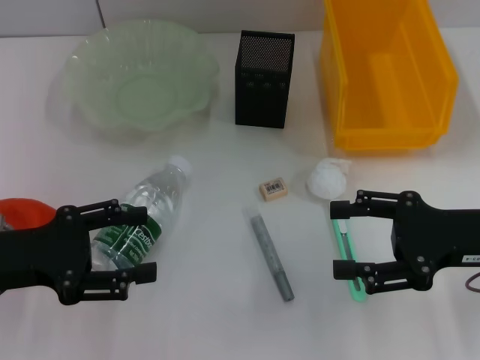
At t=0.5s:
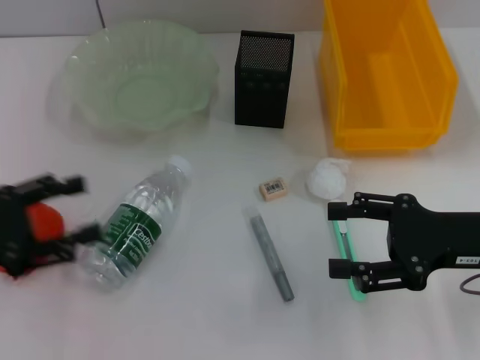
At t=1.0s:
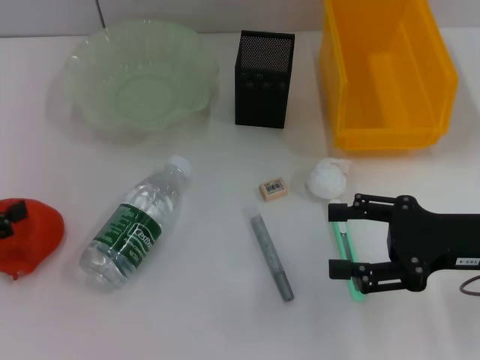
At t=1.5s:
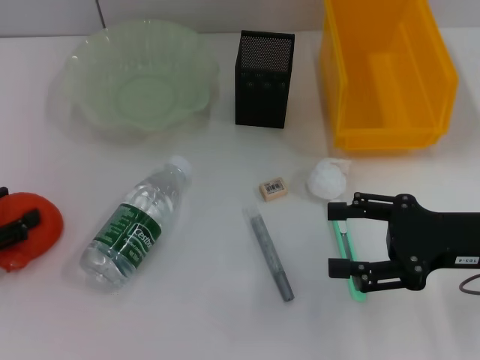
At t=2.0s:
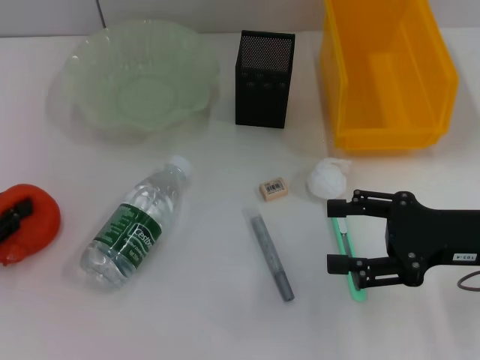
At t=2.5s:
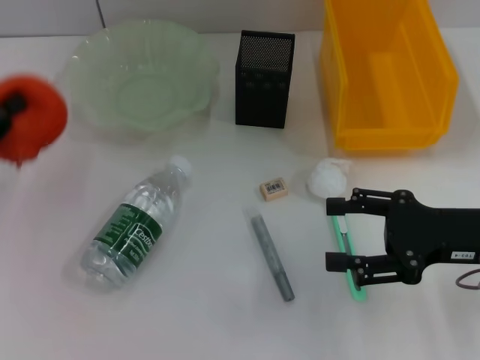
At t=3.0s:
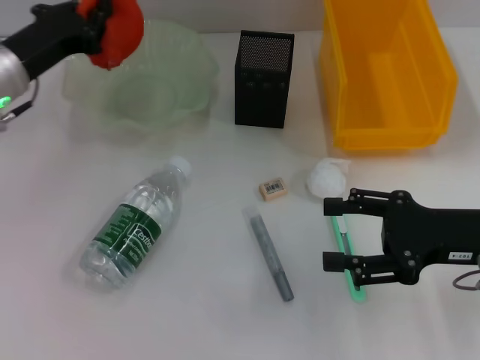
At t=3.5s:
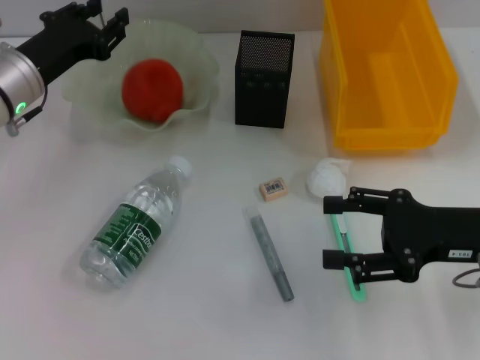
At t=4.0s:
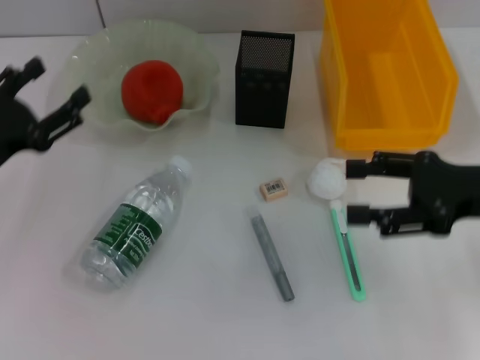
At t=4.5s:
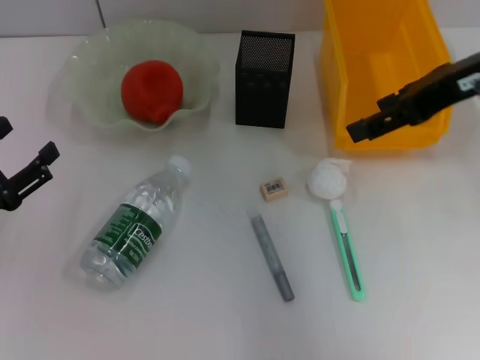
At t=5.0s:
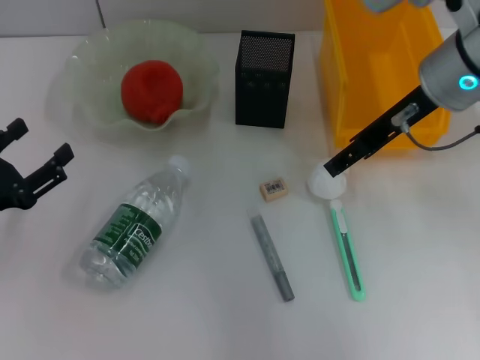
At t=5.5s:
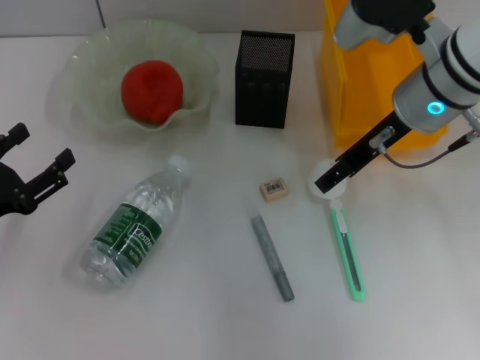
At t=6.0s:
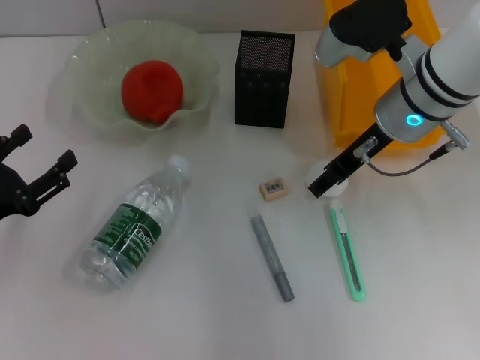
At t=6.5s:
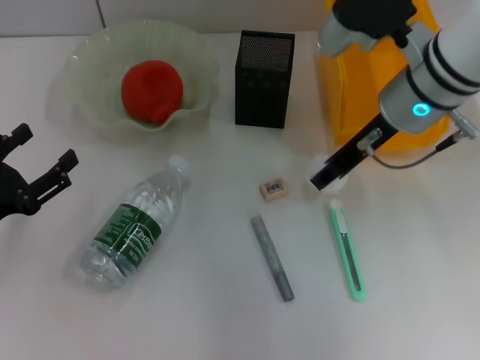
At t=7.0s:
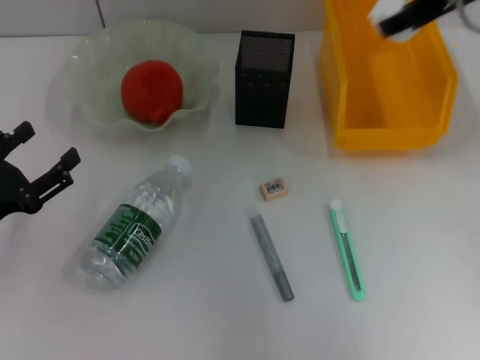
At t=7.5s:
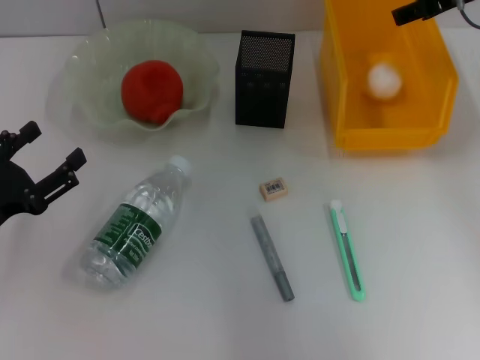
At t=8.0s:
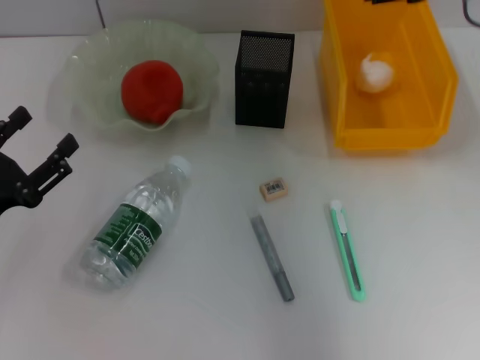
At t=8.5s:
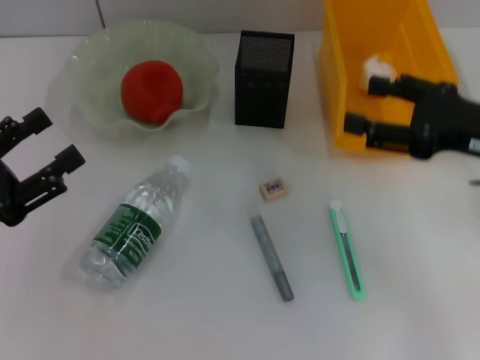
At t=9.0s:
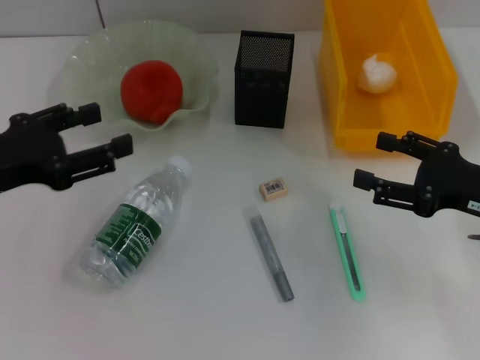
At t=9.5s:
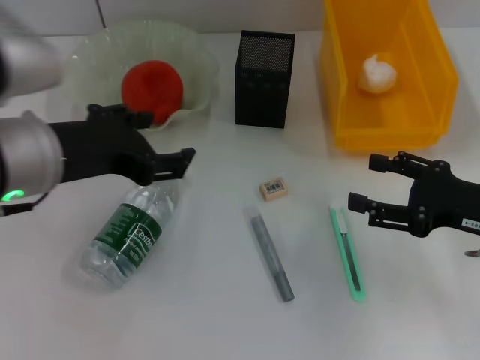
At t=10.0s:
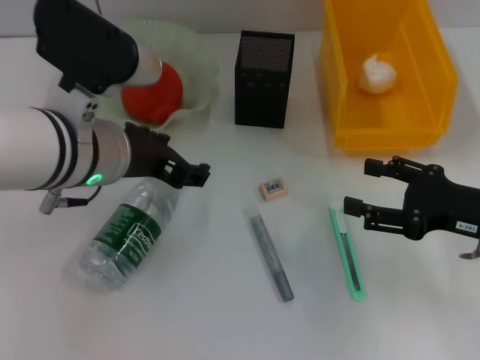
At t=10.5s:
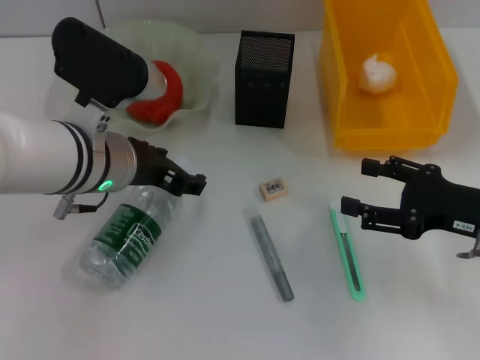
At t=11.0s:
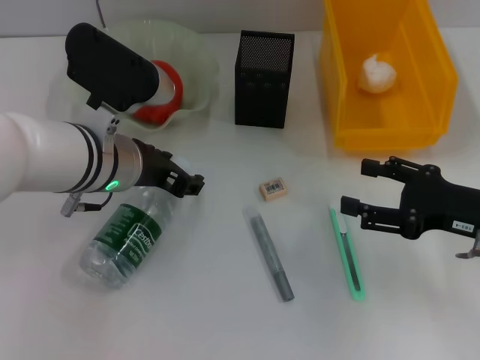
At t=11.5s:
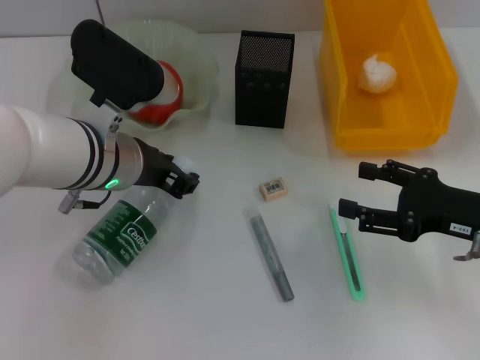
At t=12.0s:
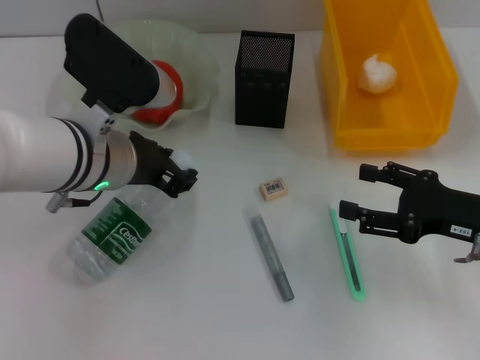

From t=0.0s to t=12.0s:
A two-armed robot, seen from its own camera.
Step, from t=0.0s to t=1.5s: Grab the orange with the left hand.
Step, from t=2.0s to t=3.5s: Place the orange into the fruit bowl with the left hand.
Step, from t=4.0s to t=6.0s: Grab the paper ball with the right hand.
Step, from t=6.5s to t=8.0s: Place the paper ball into the trash can with the right hand.
Step, from t=8.5s to t=11.0s: Grab the water bottle with the left hand.
From t=0.0s to t=2.0s: The left gripper moves to the left, approximately 10 cm, and closes its fingers.
From t=2.0s to t=4.0s: The right gripper heads upward, covering about 5 cm, while the left gripper heads to the right, covering roughly 5 cm, goes forward and returns, approximately 15 cm each way, and opens.
From t=4.0s to t=6.0s: The right gripper heads to the left and forward, covering some 15 cm. The left gripper goes approximately 5 cm backward.
From t=6.0s to t=8.0s: The right gripper shifts some 15 cm upward and to the right.
From t=8.0s to t=10.0s: The right gripper shifts about 20 cm downward and backward, while the left gripper goes roughly 20 cm to the right, upward and forward.
From t=10.0s to t=12.0s: The left gripper closes.

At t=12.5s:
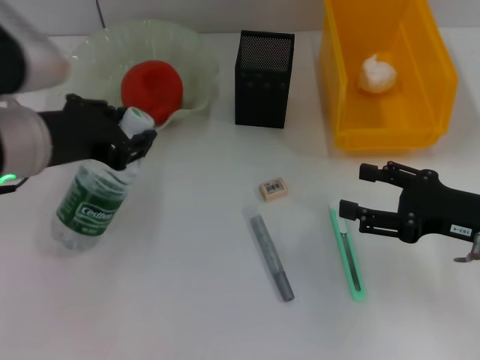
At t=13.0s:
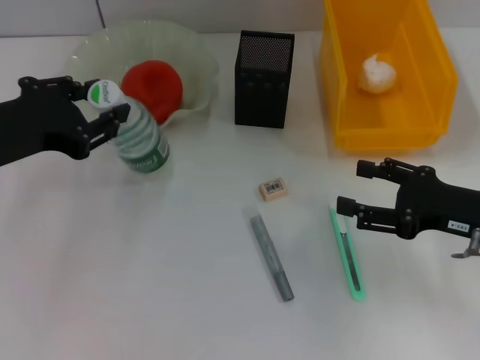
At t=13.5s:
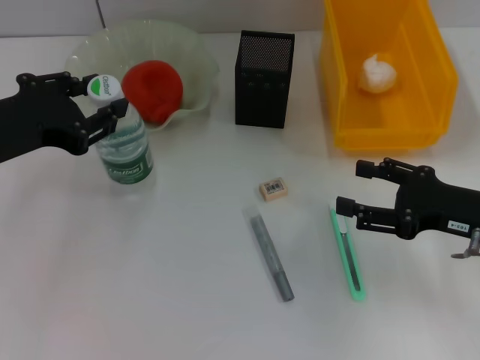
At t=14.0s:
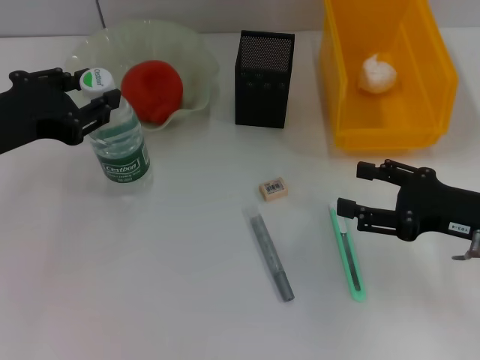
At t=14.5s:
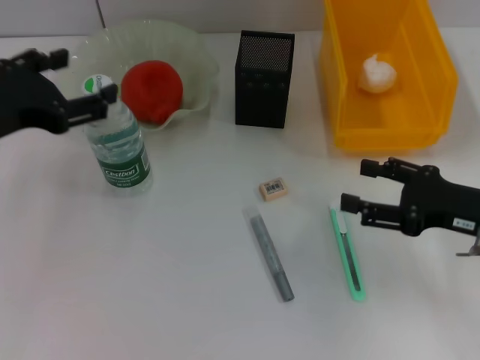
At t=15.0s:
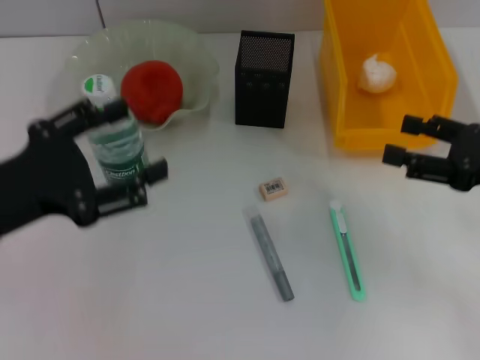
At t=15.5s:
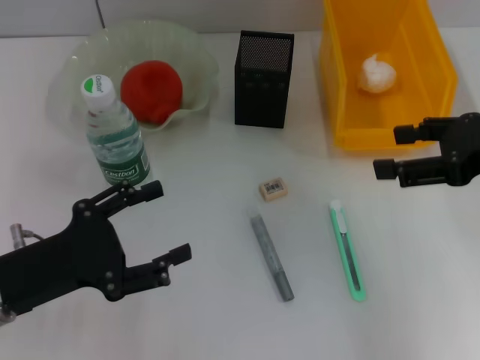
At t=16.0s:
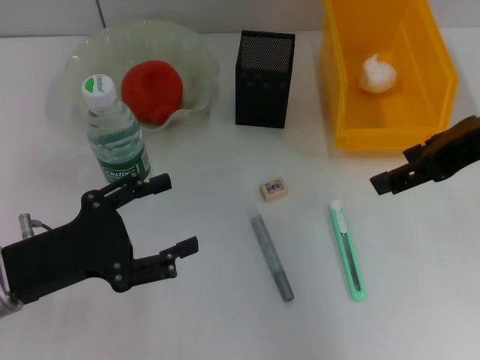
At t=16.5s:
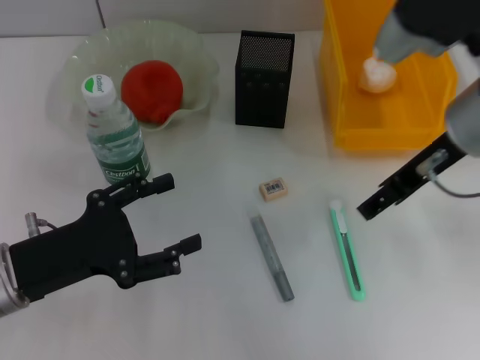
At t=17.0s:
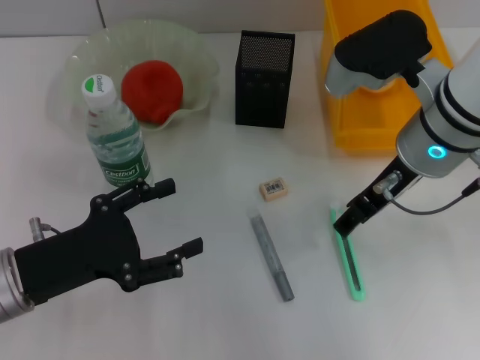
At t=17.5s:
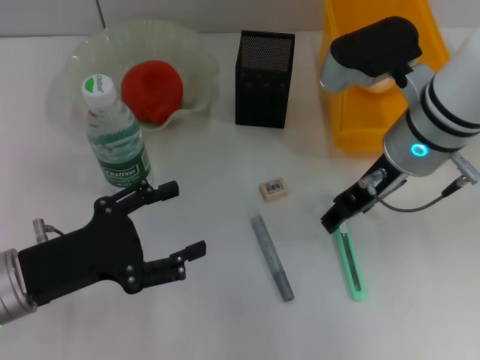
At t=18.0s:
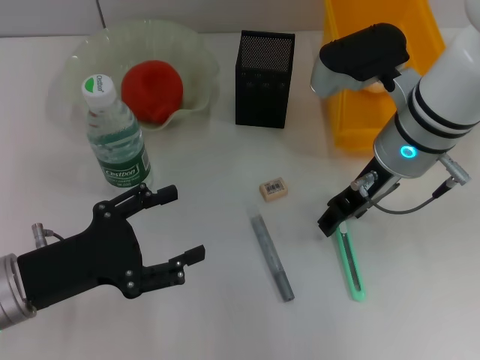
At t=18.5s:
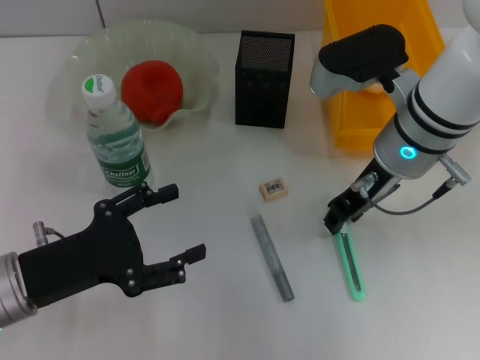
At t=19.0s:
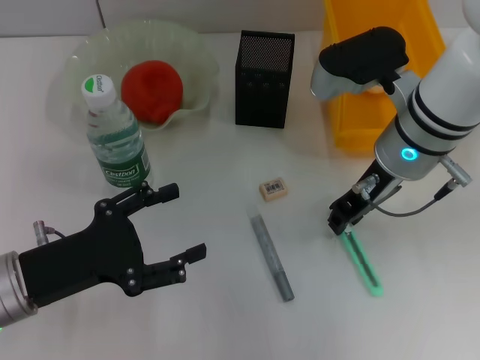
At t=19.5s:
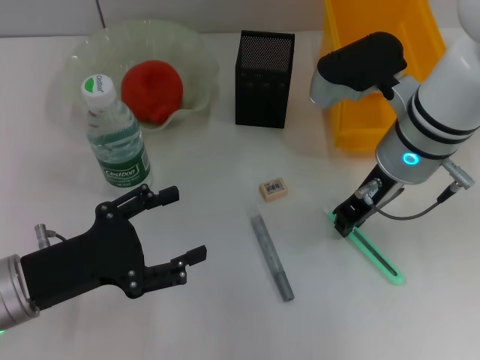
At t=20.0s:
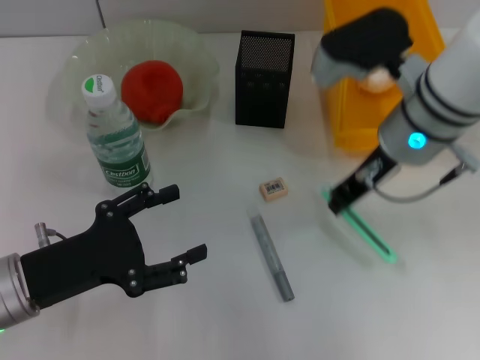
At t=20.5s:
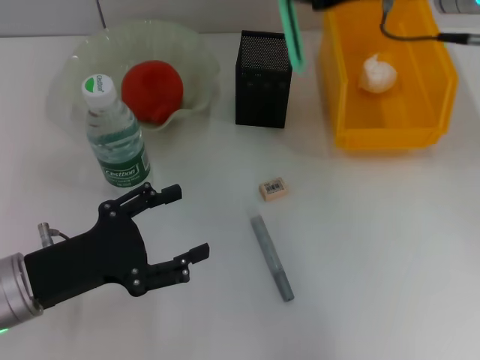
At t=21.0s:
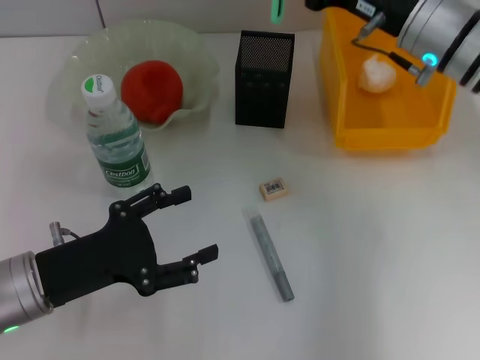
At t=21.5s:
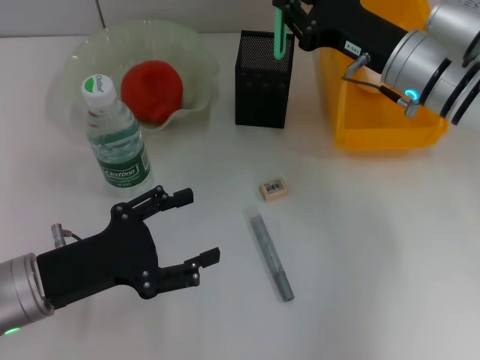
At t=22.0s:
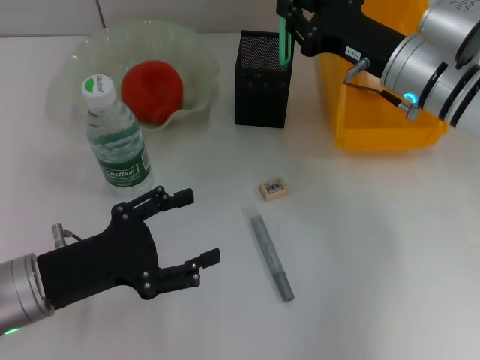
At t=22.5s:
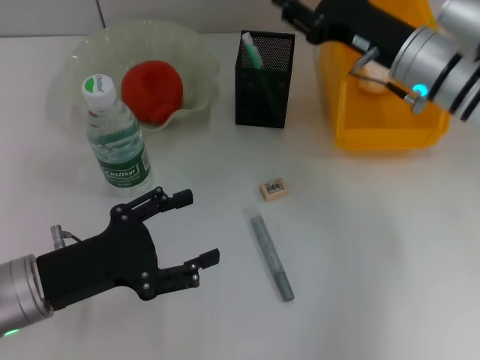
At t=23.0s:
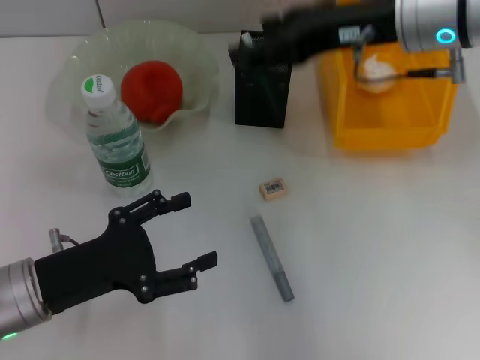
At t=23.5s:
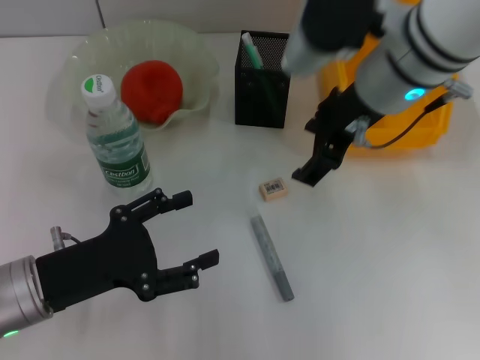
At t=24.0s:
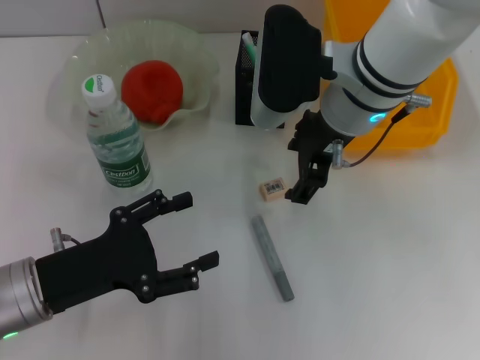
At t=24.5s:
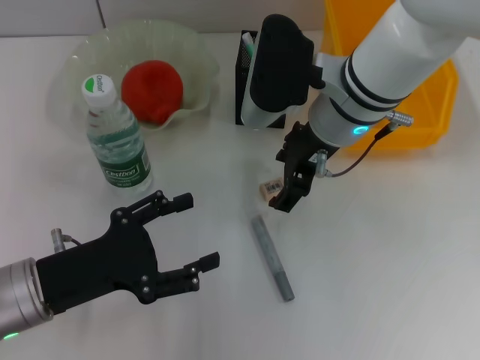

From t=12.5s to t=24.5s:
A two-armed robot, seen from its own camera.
Step, from t=12.5s to t=14.0s: Place the water bottle on the table with the left hand.
Step, from t=14.5s to t=19.0s: Grab the blue utility knife with the right hand.
Step, from t=20.0s to t=22.0s: Place the blue utility knife into the pen holder with the right hand.
From t=12.5s to t=14.5s: The left gripper is displaced to the left by about 5 cm.
From t=14.5s to t=16.5s: The right gripper is displaced upward, to the left and forward by approximately 20 cm. The left gripper is displaced downward and backward by about 15 cm.
From t=16.5s to t=18.5s: The right gripper moves downward, roughly 5 cm, and closes its fingers.
From t=18.5s to t=20.5s: The right gripper goes approximately 10 cm upward, and closes.
From t=20.5s to t=22.5s: The right gripper heads downward, covering about 15 cm.
From t=22.5s to t=24.5s: The right gripper heads to the left, covering approximately 10 cm, and opens up.

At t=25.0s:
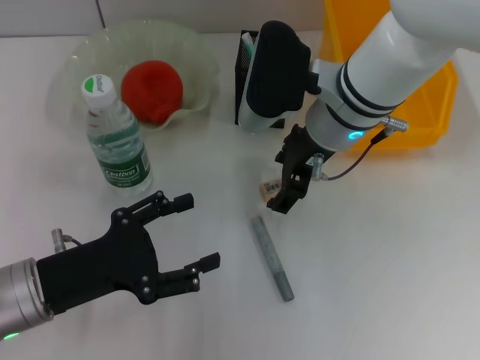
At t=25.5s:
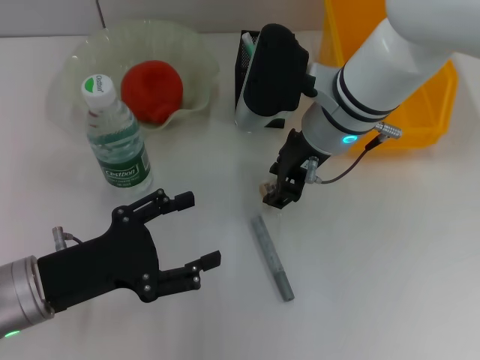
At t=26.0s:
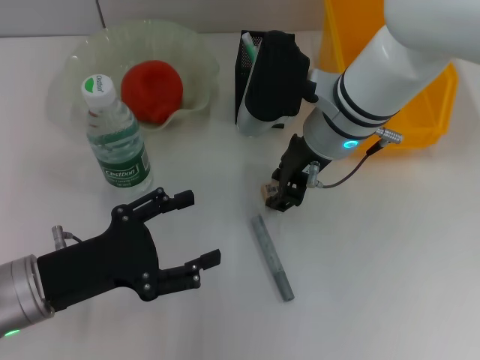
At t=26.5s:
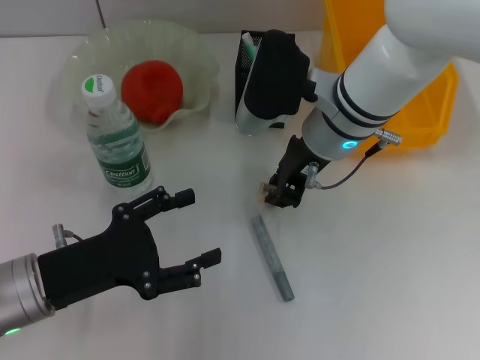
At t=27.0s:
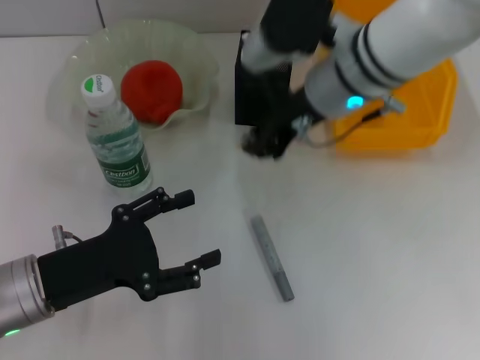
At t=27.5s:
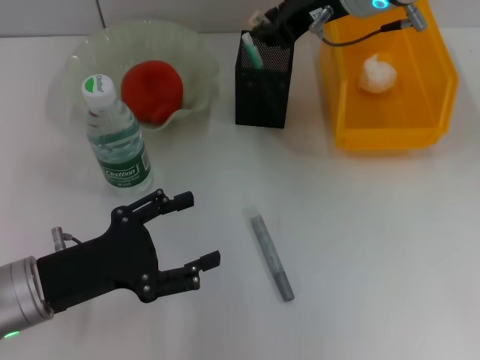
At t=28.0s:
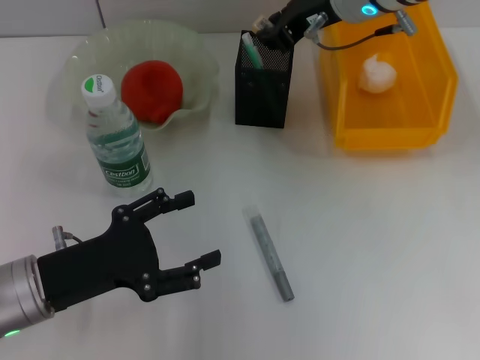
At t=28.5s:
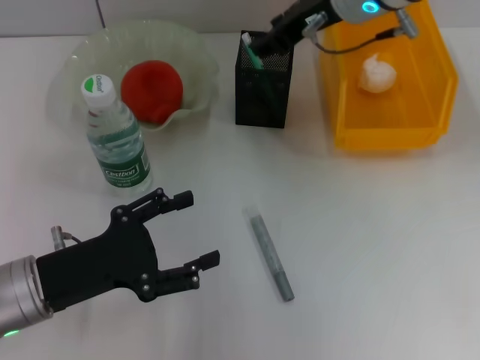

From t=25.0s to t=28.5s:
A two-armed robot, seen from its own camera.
Step, from t=26.5s to t=28.0s: Put the eraser into the pen holder with the right hand.
From t=25.0s to t=27.0s: The right gripper closes.
From t=27.0s to t=28.5s: The right gripper shifts by approximately 5 cm.
